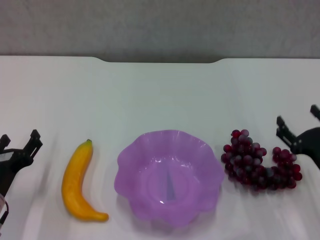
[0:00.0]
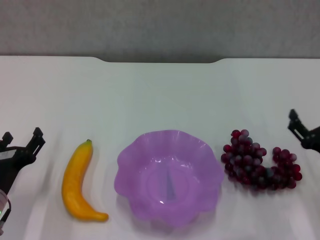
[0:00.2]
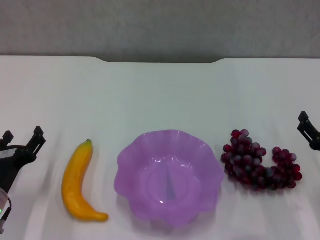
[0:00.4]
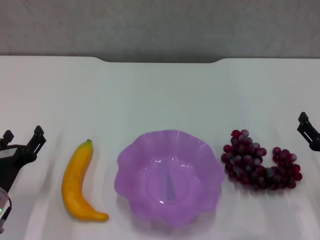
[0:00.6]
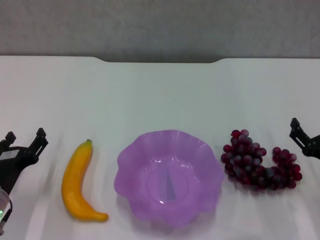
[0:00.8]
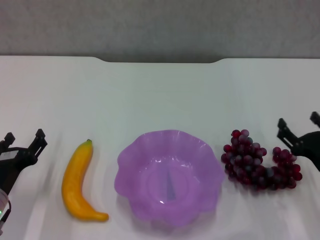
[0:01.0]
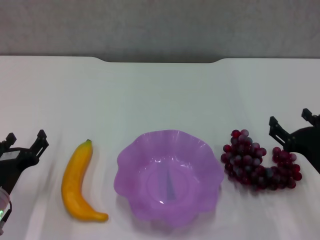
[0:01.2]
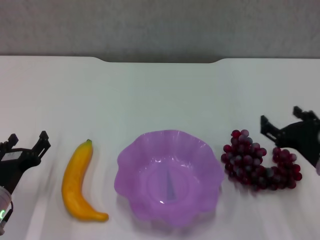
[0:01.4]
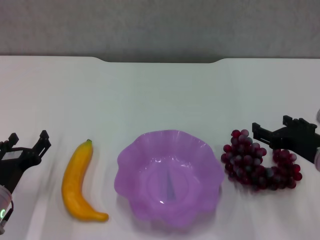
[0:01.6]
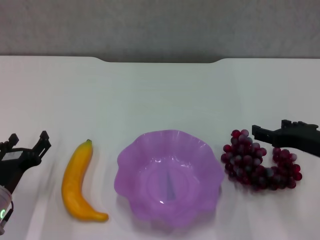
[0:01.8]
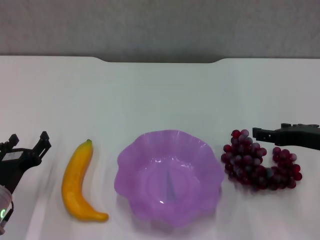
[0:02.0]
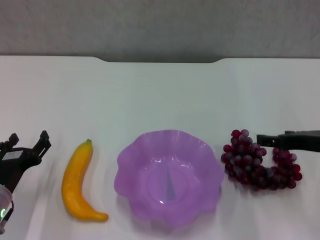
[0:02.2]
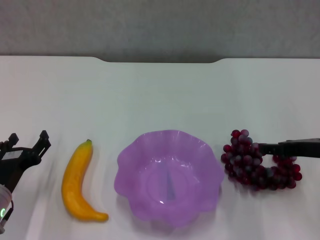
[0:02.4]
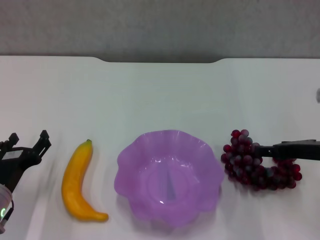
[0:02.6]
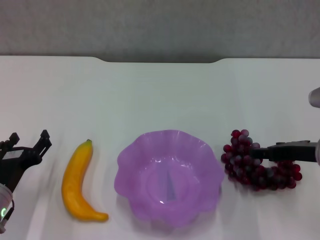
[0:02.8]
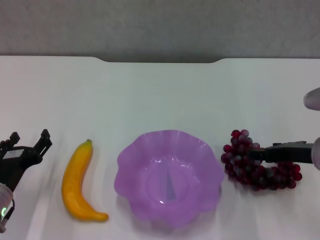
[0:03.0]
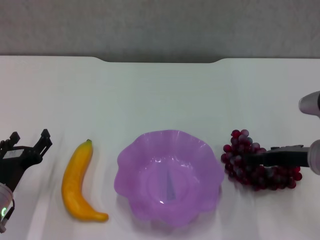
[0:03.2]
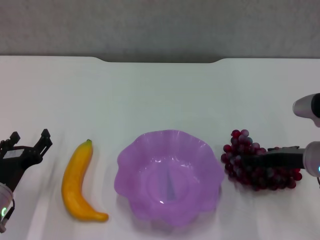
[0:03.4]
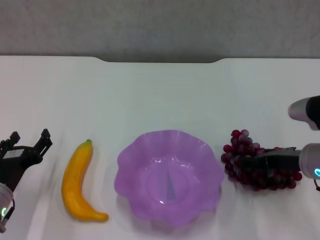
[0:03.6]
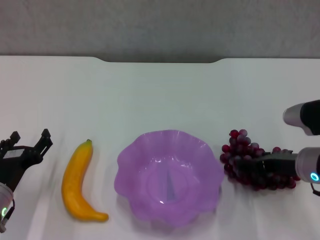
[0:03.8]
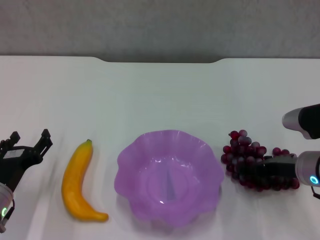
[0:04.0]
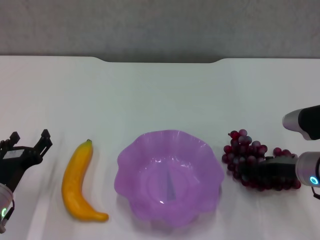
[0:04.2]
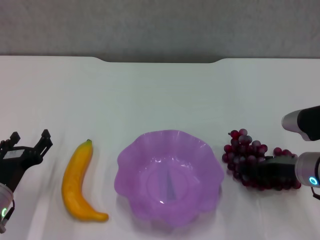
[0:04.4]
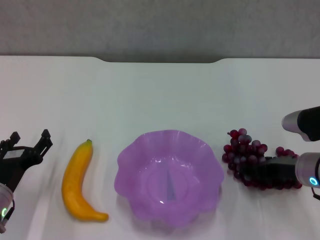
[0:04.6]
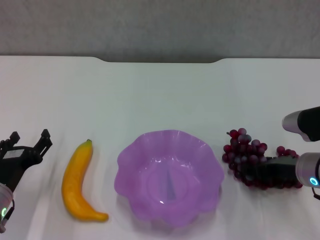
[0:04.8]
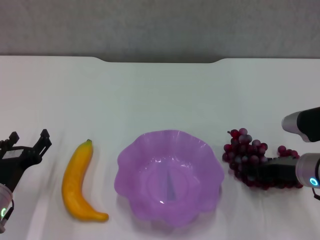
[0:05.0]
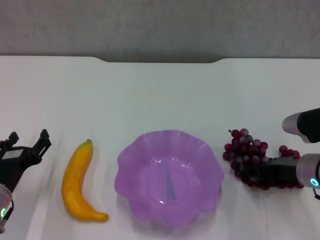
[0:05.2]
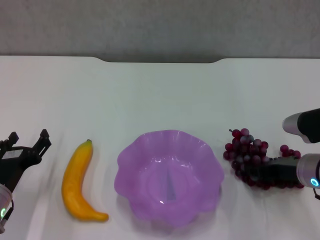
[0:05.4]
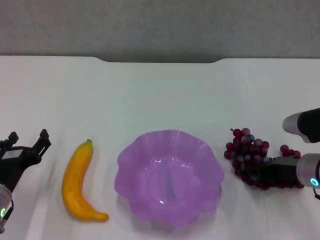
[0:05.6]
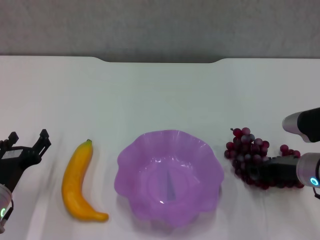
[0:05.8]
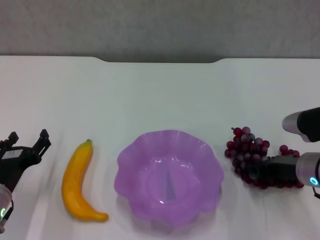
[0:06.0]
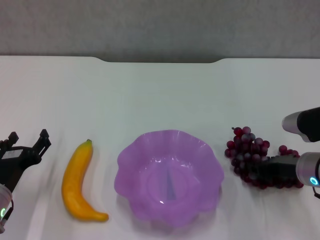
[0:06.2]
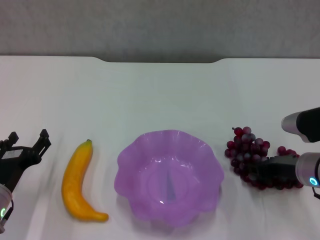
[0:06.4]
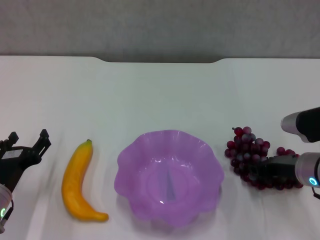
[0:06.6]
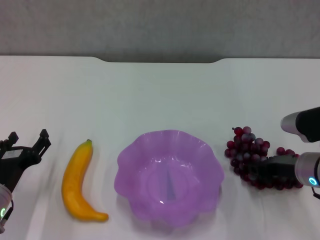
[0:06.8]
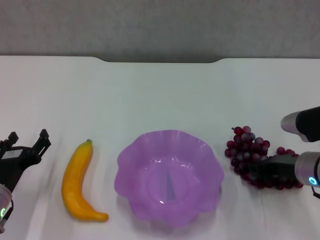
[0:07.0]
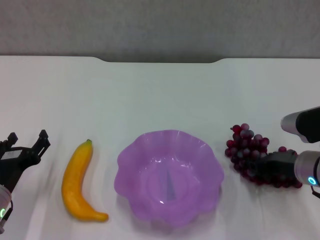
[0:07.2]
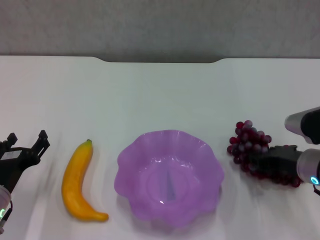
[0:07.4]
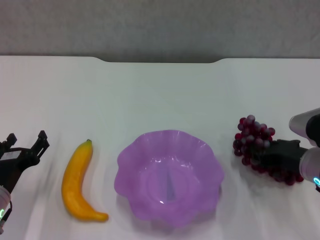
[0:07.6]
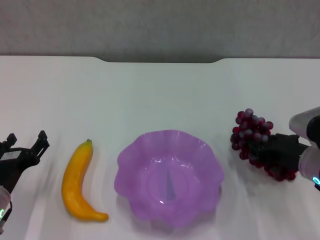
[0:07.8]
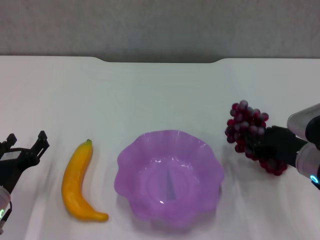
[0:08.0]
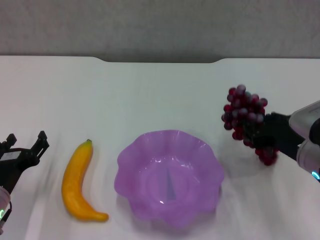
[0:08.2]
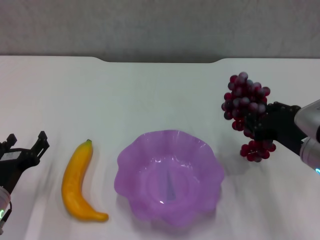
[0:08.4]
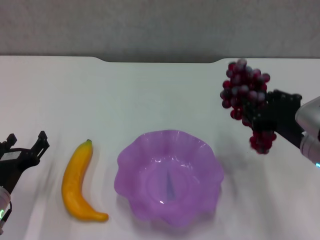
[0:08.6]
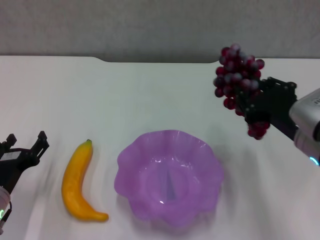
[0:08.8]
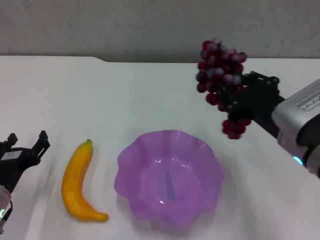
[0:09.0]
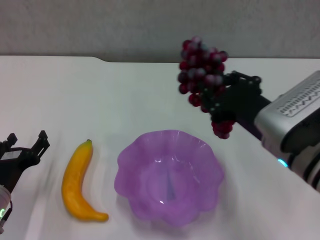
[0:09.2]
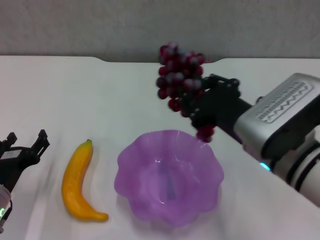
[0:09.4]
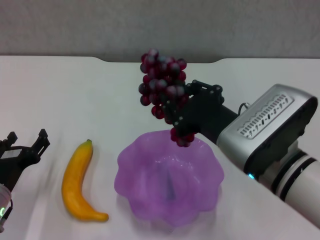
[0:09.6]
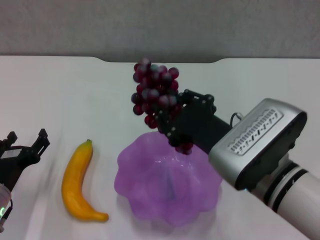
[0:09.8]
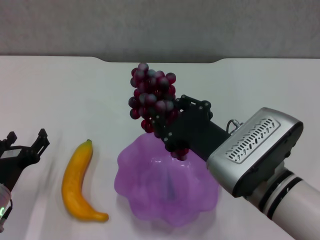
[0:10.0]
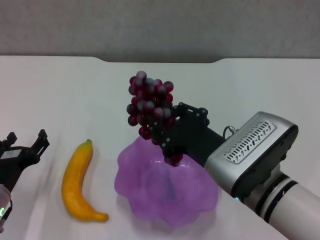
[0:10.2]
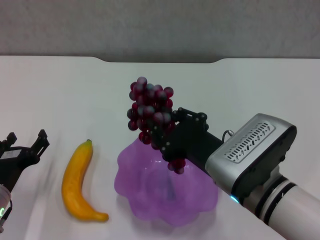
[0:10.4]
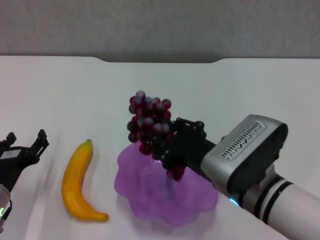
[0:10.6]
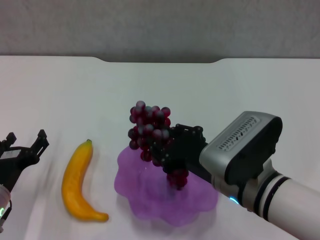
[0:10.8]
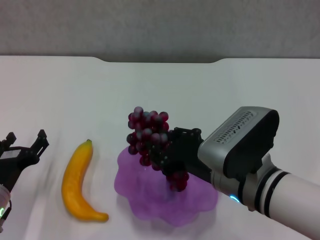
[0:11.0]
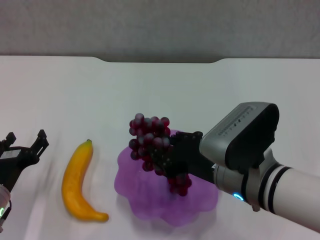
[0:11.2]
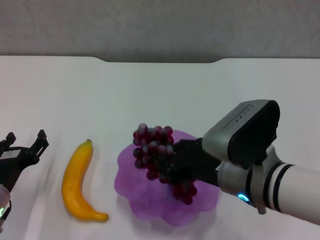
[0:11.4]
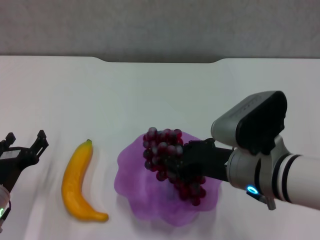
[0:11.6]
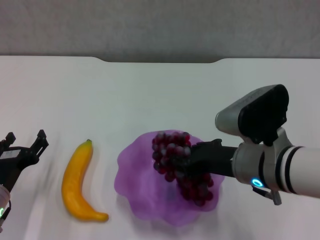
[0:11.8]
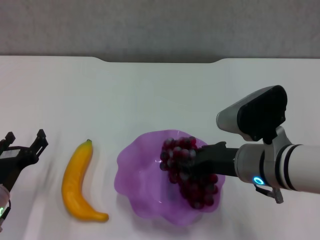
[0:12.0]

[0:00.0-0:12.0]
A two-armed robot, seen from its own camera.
Step, 0:00.0 to 0:05.0: Grasp the grape with right gripper.
0:00.0 to 0:01.6: The right gripper goes some 5 cm upward.
0:03.0 to 0:04.4: The grippers stay close to where they were, moving slightly.
0:04.4 to 0:06.0: The right gripper closes its fingers.
0:06.0 to 0:07.6: The grippers stay close to where they were, moving slightly.
0:07.6 to 0:09.0: The right gripper moves upward and to the left, approximately 10 cm.
0:09.0 to 0:10.4: The right gripper goes some 5 cm to the left.
0:10.4 to 0:12.0: The right gripper ends up approximately 5 cm from where it was.

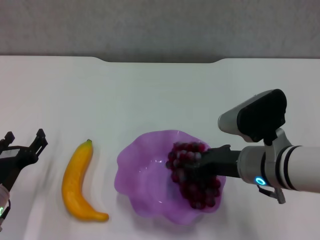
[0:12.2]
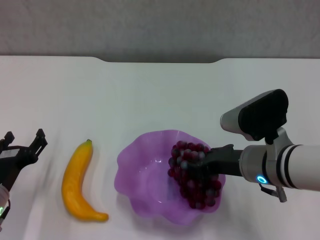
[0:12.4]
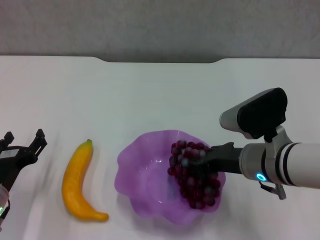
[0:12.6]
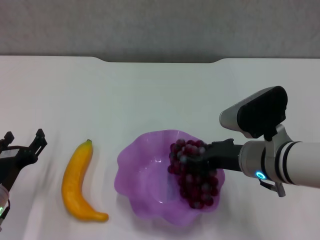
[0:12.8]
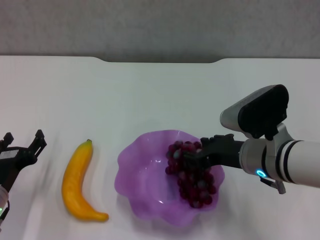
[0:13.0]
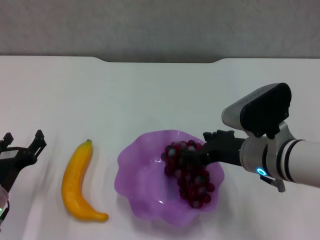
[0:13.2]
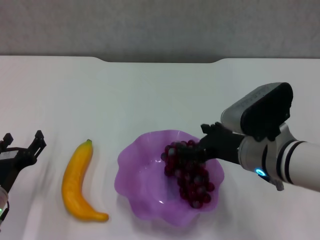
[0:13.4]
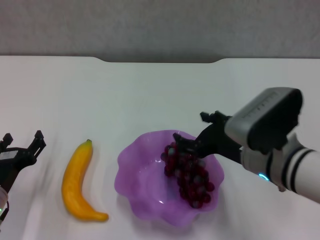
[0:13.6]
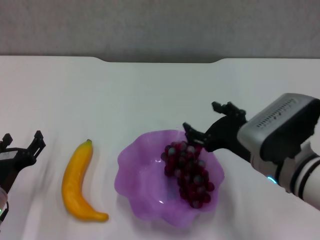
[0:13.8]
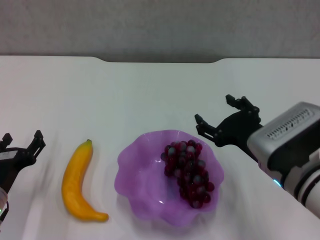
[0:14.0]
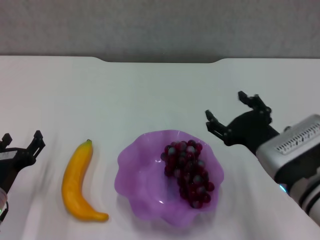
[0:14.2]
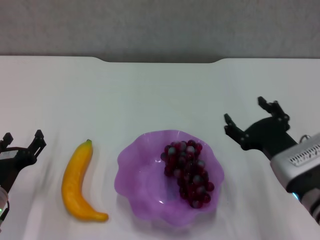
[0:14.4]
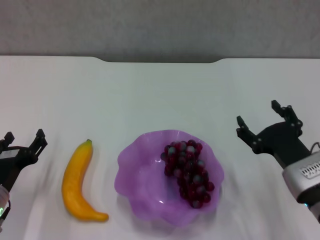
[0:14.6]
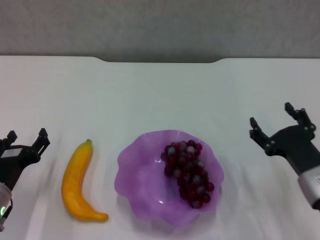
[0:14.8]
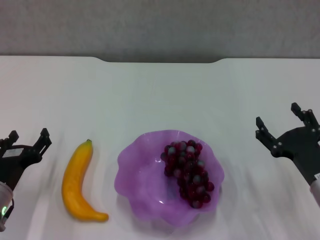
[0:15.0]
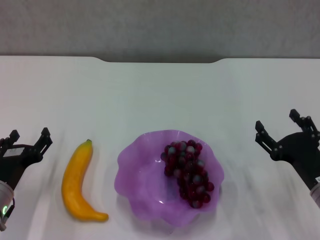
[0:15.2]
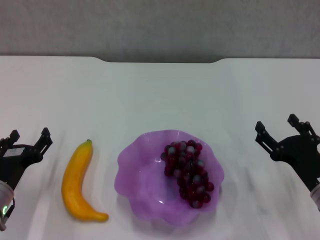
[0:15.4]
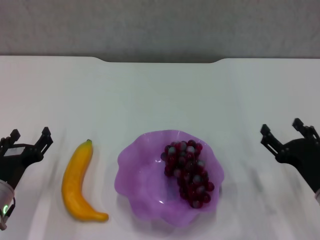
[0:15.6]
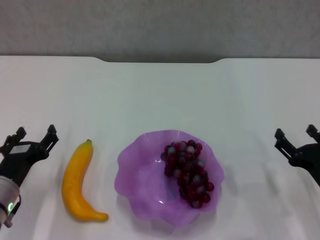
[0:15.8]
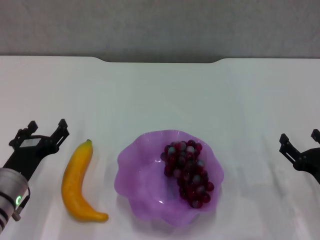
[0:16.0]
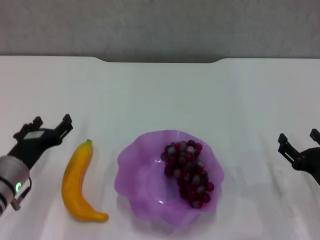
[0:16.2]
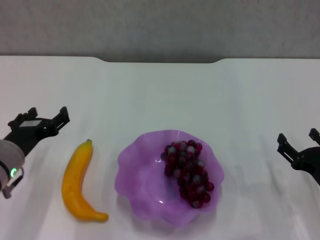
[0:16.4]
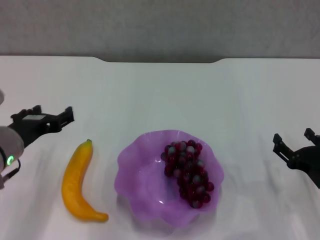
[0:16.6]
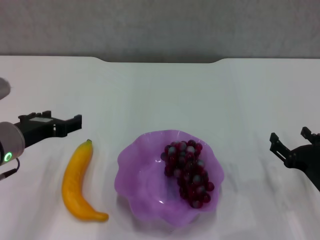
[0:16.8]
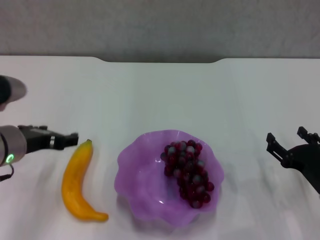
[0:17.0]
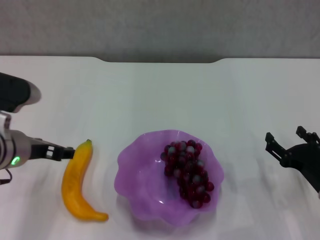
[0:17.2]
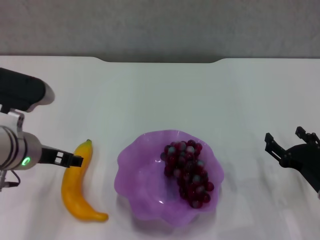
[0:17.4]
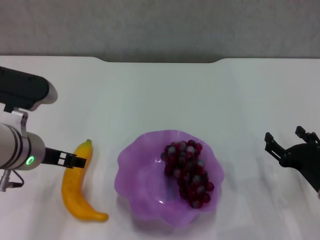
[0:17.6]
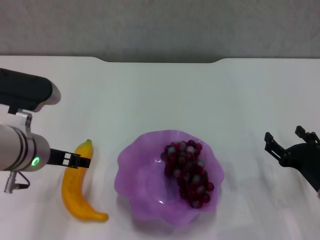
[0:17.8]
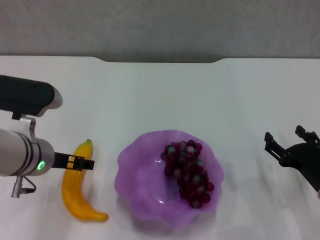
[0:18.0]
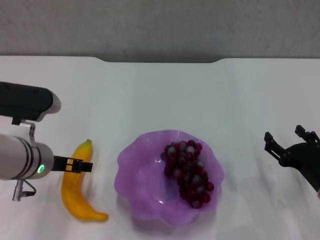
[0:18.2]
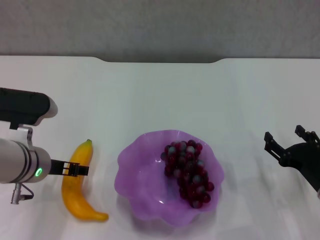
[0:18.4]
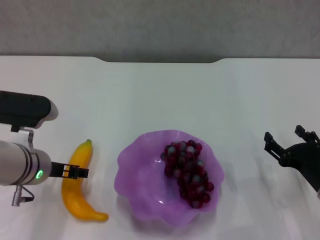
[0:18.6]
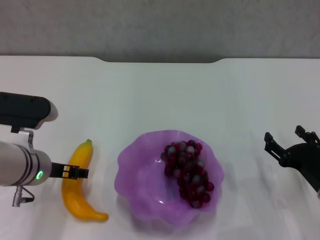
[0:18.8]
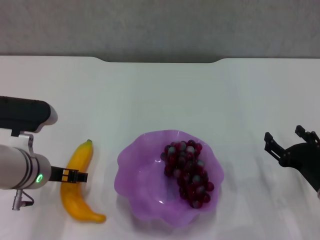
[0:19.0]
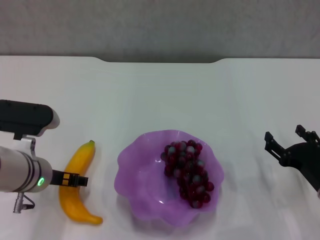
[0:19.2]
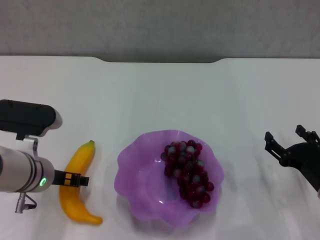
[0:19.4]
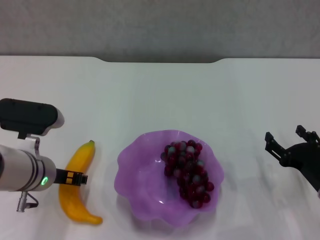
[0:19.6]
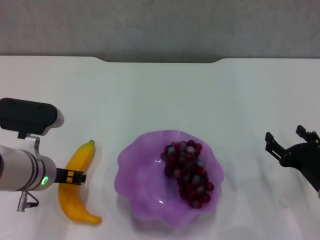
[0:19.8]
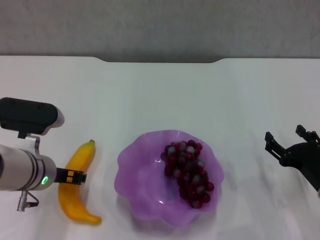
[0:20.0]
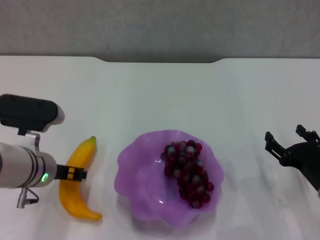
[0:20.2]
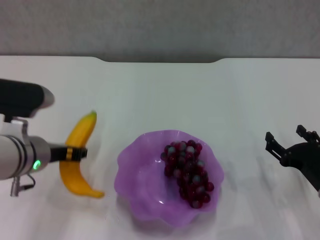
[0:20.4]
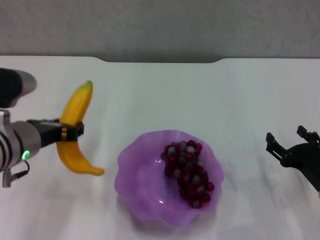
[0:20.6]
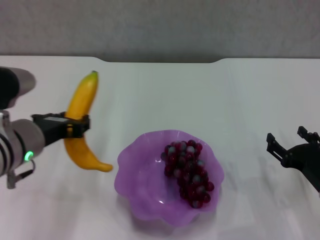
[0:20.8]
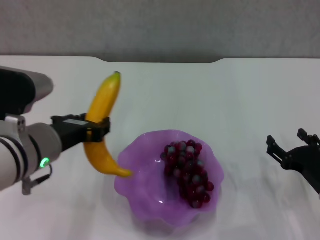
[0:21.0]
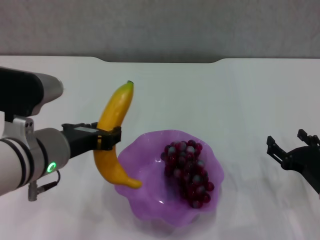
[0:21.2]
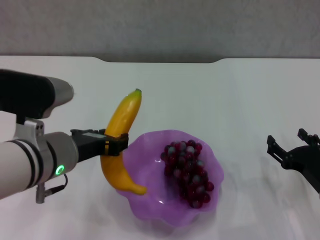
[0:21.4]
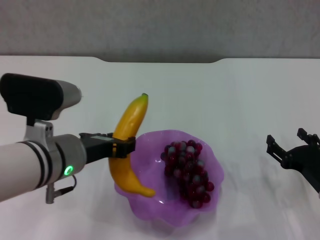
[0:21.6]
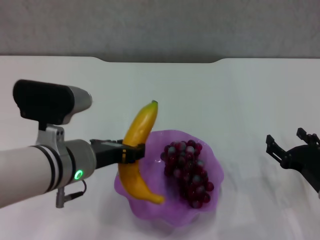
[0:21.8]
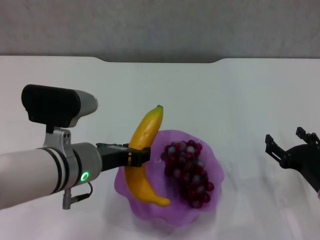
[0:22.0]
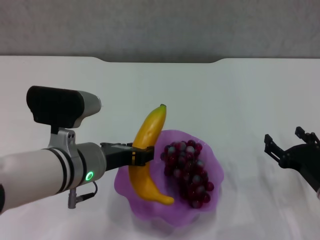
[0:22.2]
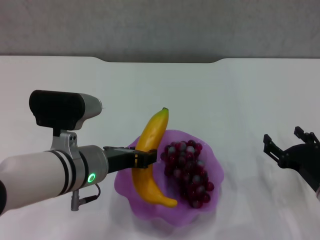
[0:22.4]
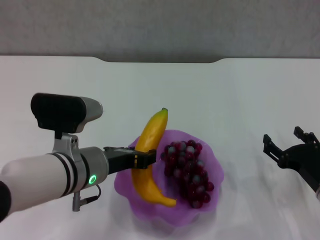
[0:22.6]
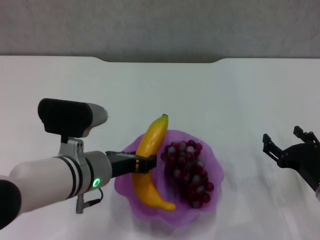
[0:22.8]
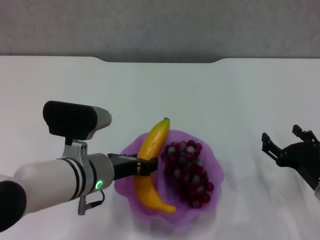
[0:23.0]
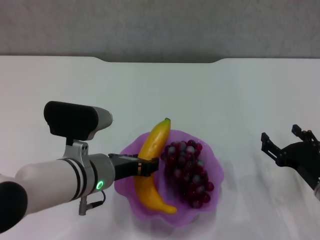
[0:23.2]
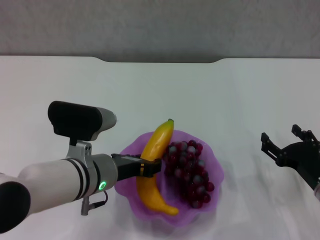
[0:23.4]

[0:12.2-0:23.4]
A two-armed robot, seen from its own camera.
Step, 0:14.0 to 0:19.6: Grasp the banana with left gripper.
0:12.2 to 0:13.8: The right gripper opens up.
0:13.8 to 0:15.4: The right gripper travels to the right and downward by roughly 15 cm.
0:15.4 to 0:17.0: The left gripper moves upward, roughly 10 cm.
0:17.0 to 0:18.6: The grippers make only small movements.
0:18.6 to 0:20.2: The left gripper closes.
0:20.2 to 0:21.8: The left gripper moves to the right, about 5 cm.
0:21.8 to 0:23.4: The left gripper moves downward, approximately 5 cm.
